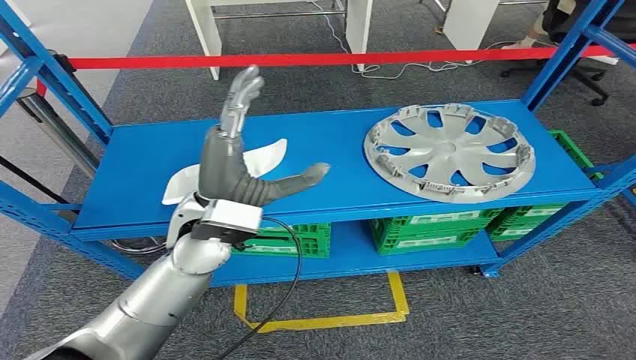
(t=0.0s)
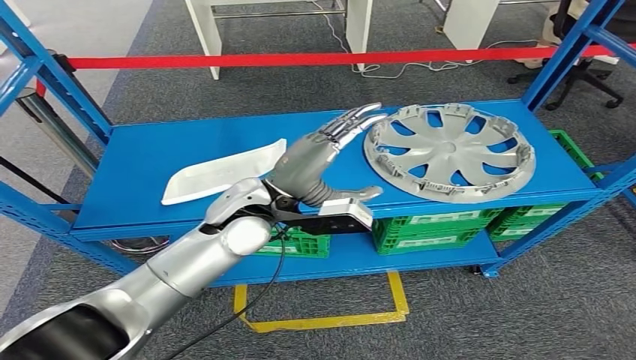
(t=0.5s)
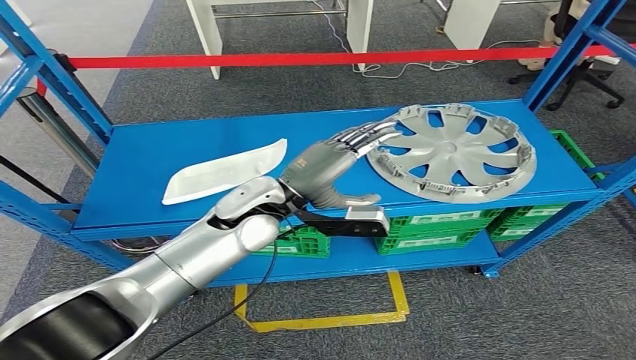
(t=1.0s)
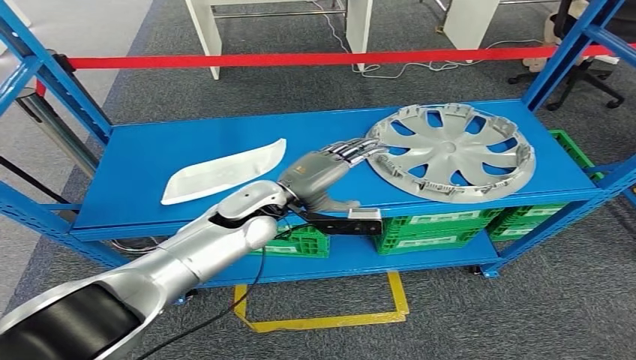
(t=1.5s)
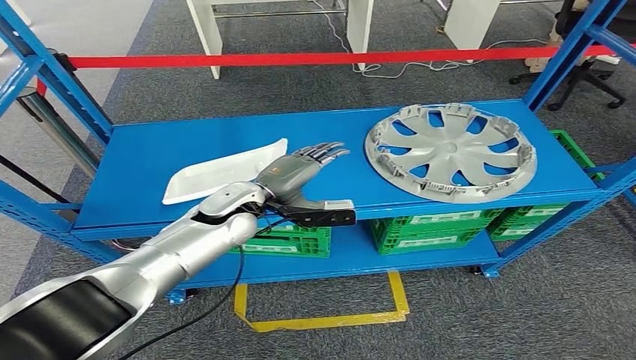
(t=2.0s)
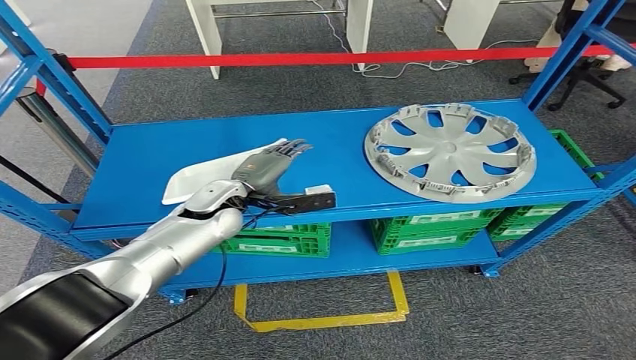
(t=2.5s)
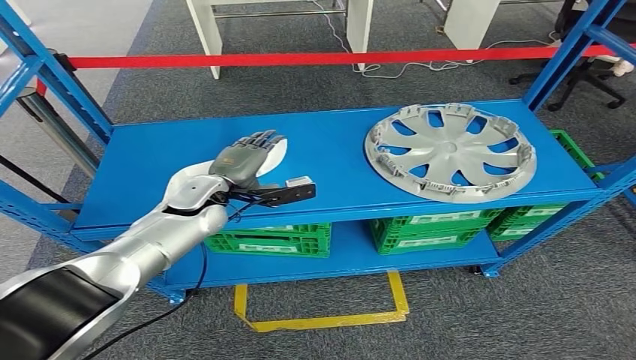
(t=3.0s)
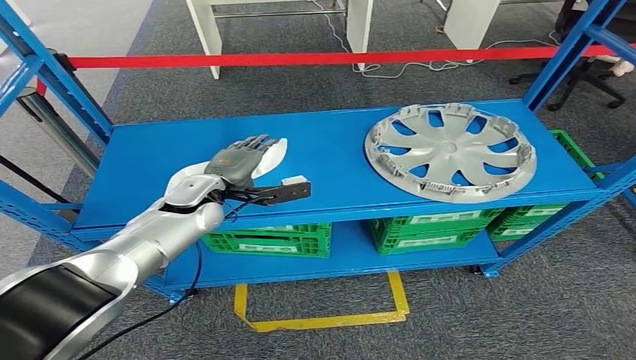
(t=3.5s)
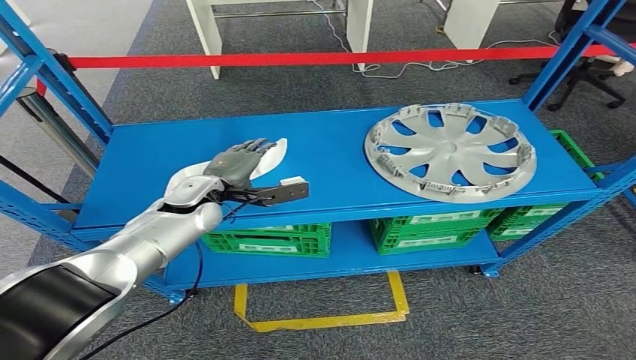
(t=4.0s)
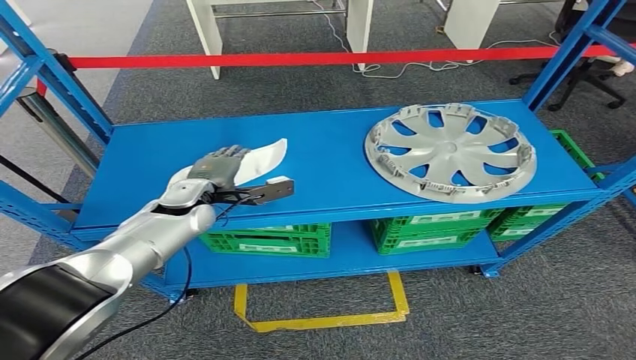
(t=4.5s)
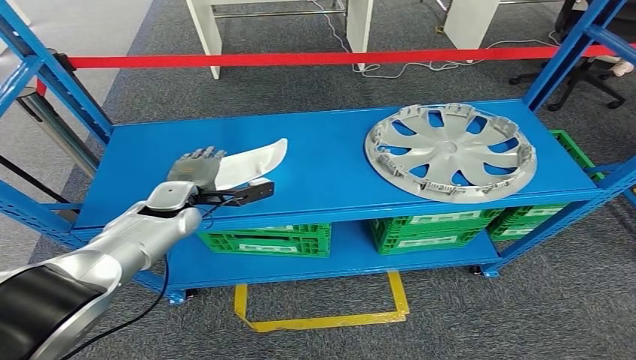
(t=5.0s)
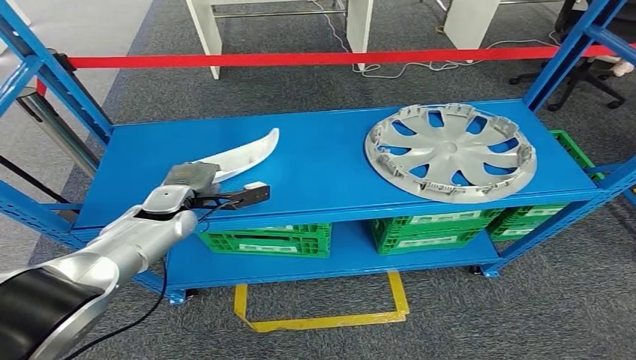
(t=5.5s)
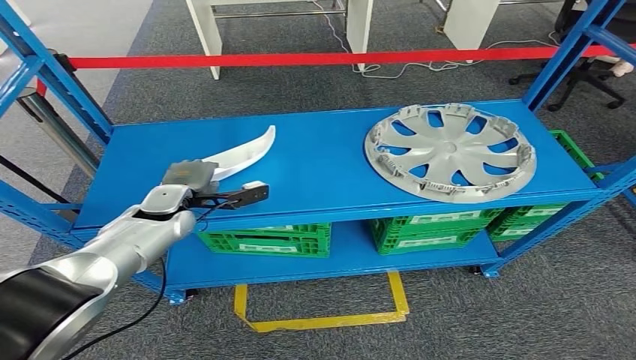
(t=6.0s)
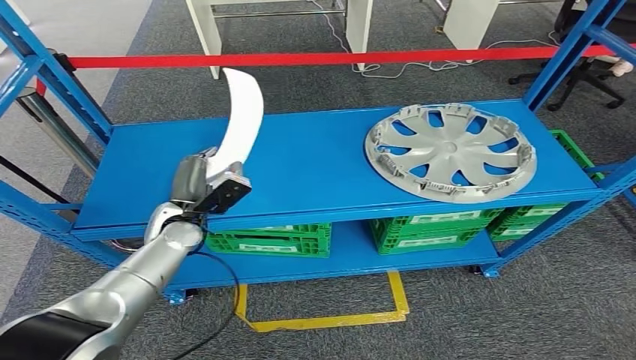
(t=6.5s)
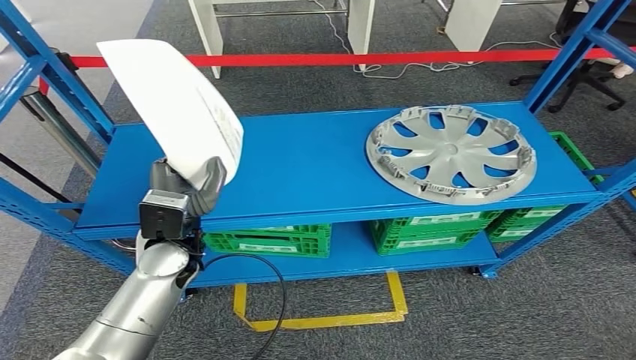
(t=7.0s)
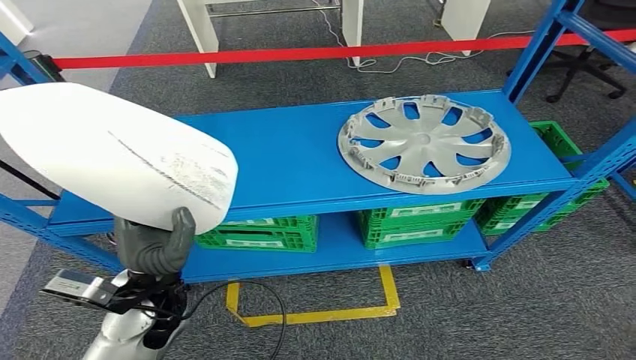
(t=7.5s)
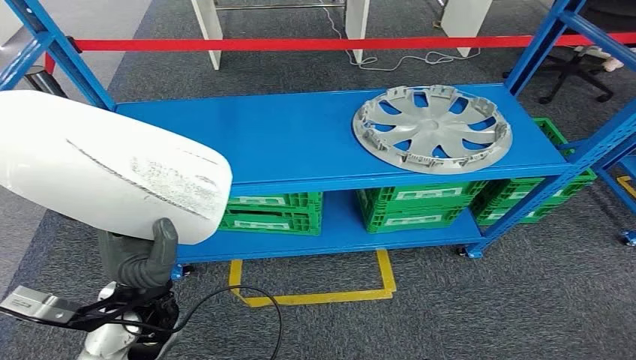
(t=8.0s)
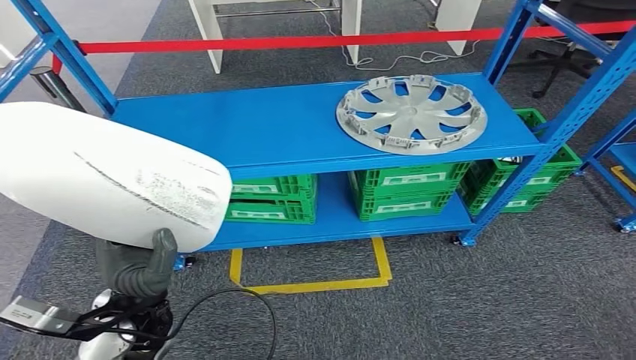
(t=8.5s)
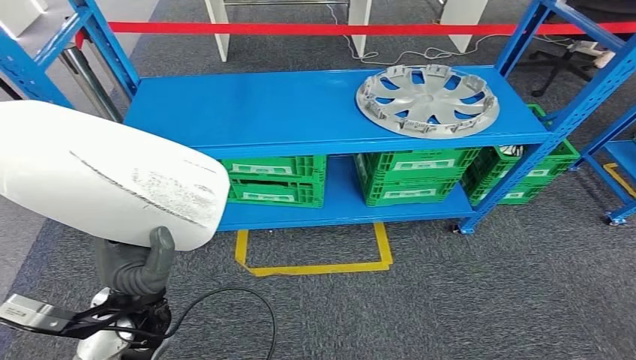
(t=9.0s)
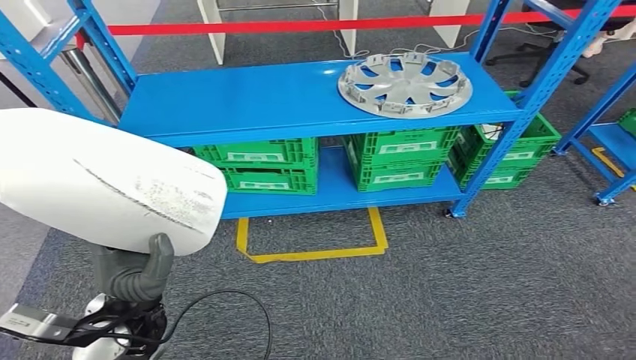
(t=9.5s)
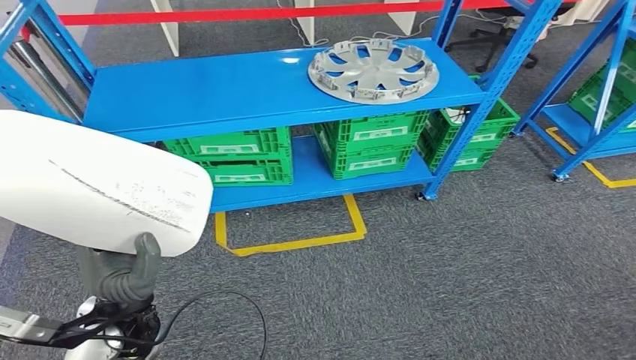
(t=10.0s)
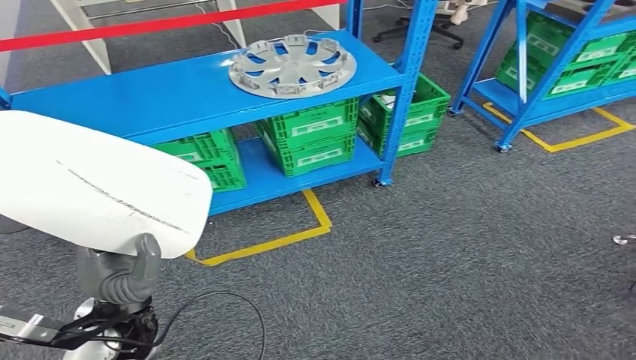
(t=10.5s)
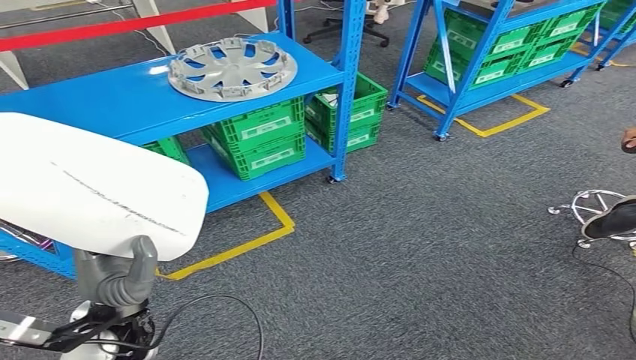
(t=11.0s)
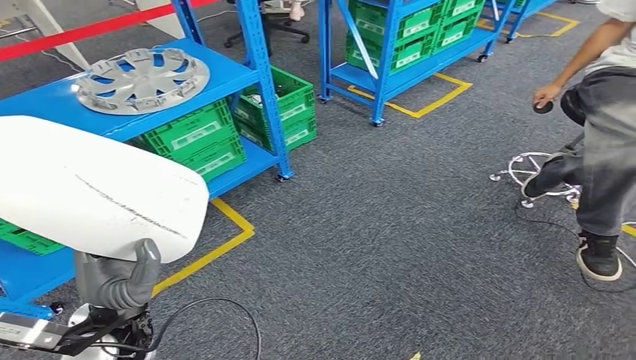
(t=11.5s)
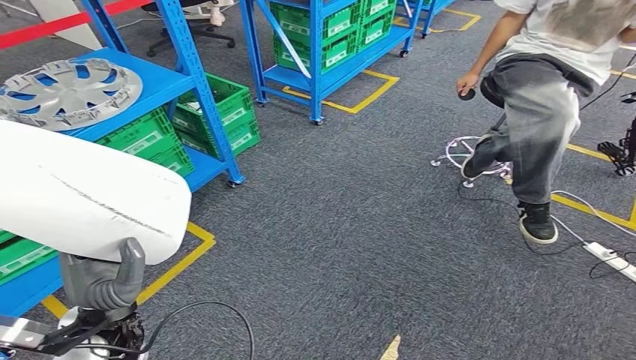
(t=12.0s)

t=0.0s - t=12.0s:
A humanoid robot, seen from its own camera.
Step, t=0.0s - t=7.5s: Pick up the small parts from the shelf.
t=2.0s - t=4.0s: The left hand travels to the left by approximately 5 cm.
t=4.0s - t=6.0s: The left hand shifts roughly 5 cm to the left.

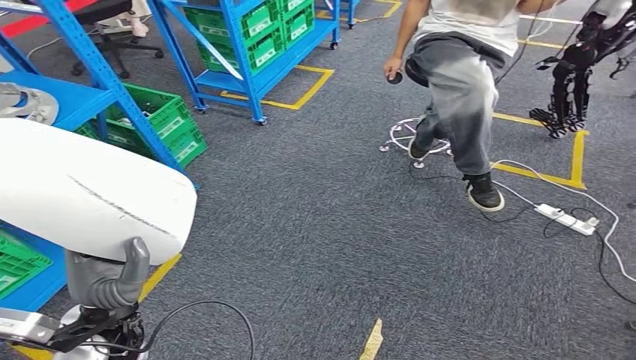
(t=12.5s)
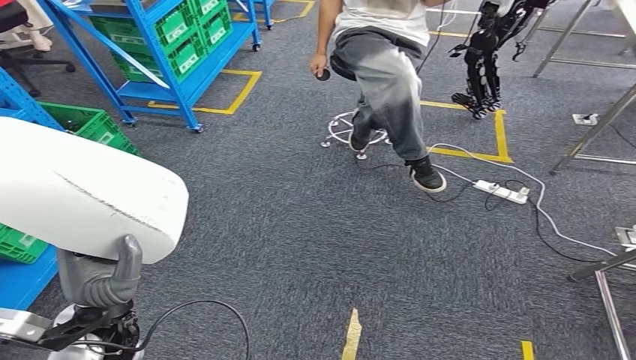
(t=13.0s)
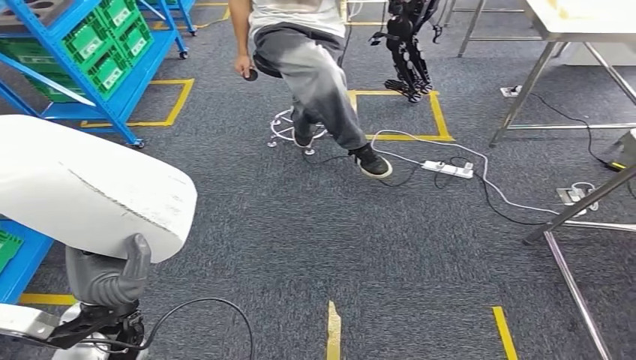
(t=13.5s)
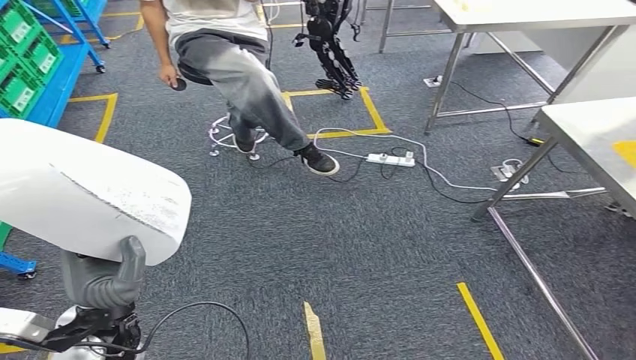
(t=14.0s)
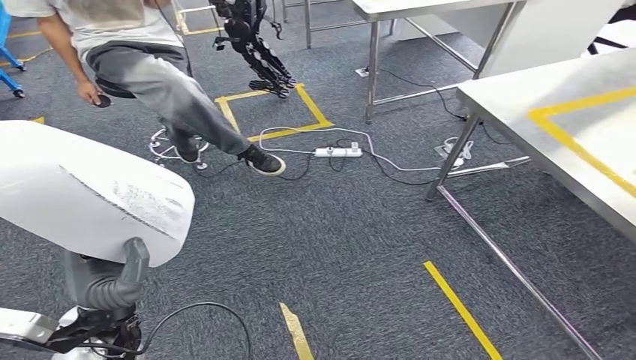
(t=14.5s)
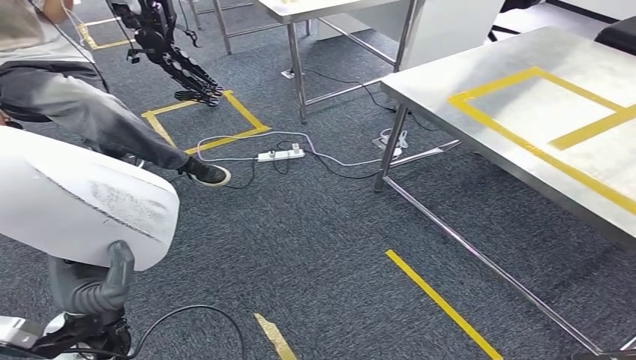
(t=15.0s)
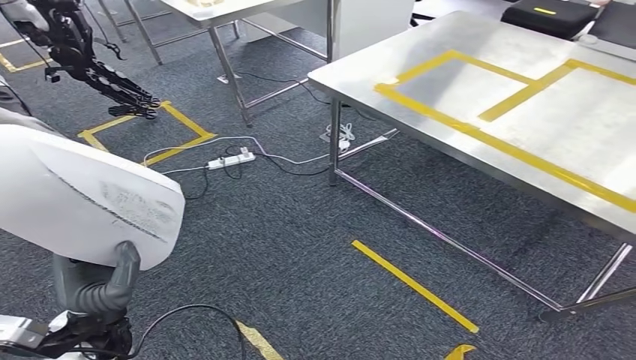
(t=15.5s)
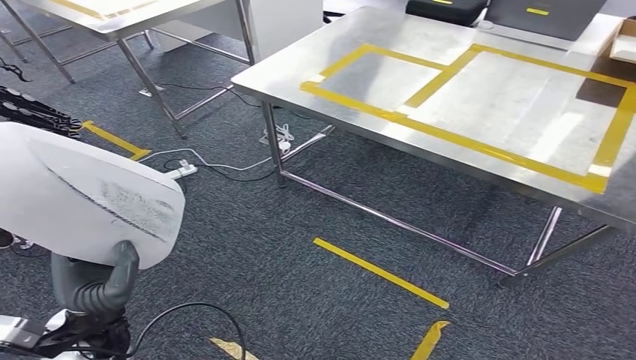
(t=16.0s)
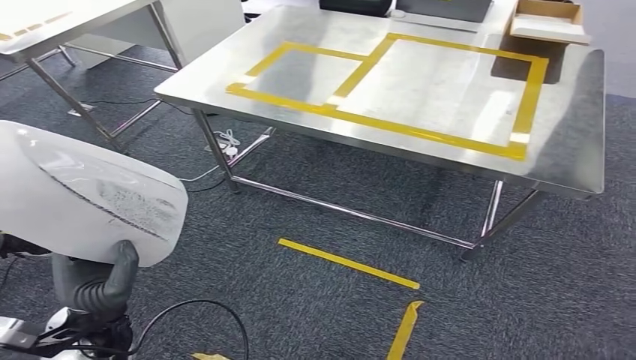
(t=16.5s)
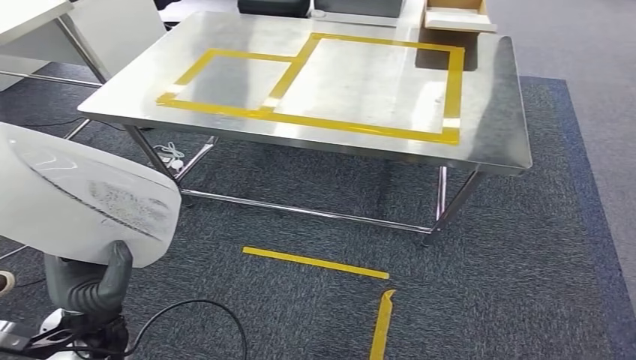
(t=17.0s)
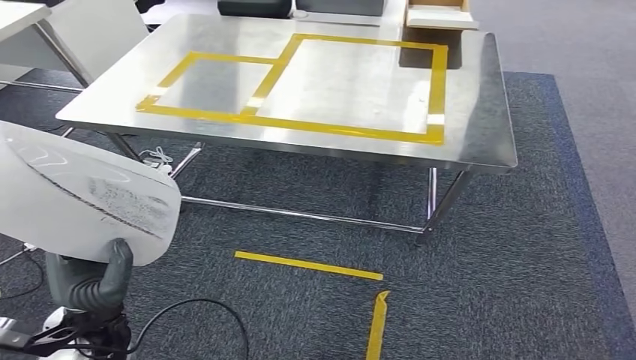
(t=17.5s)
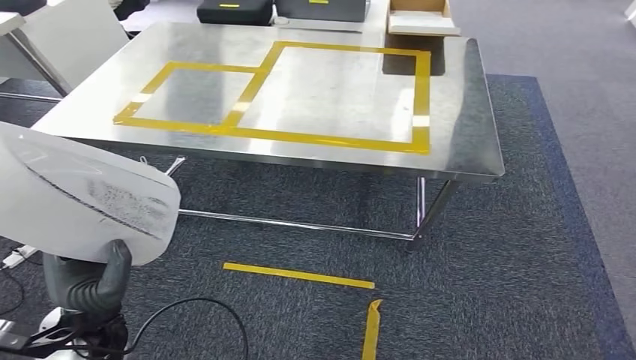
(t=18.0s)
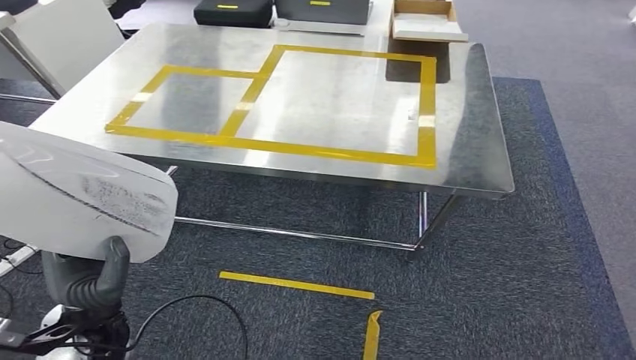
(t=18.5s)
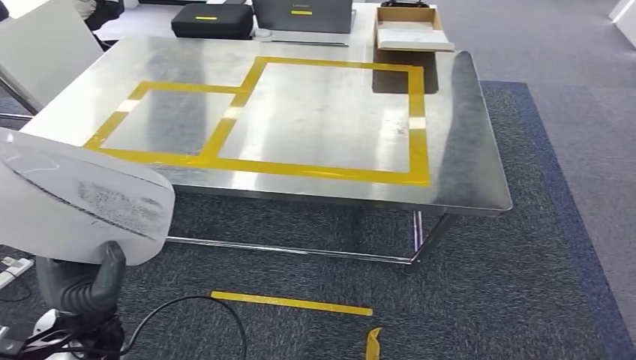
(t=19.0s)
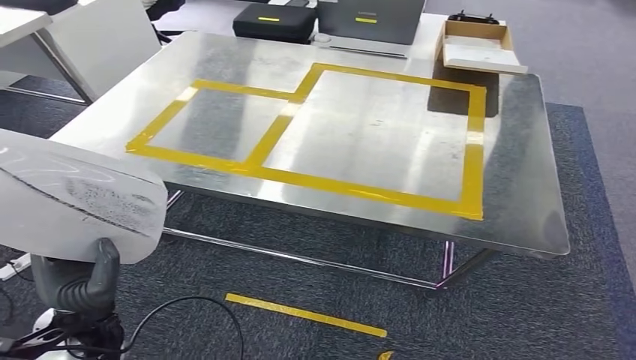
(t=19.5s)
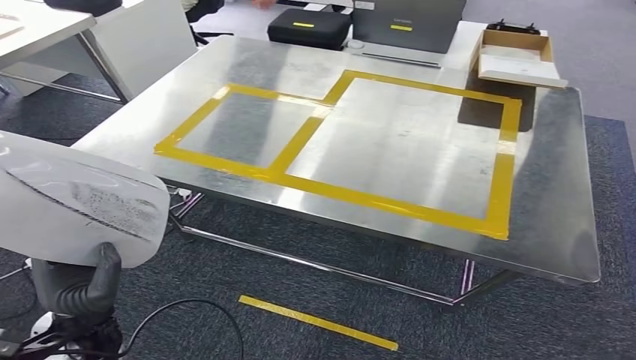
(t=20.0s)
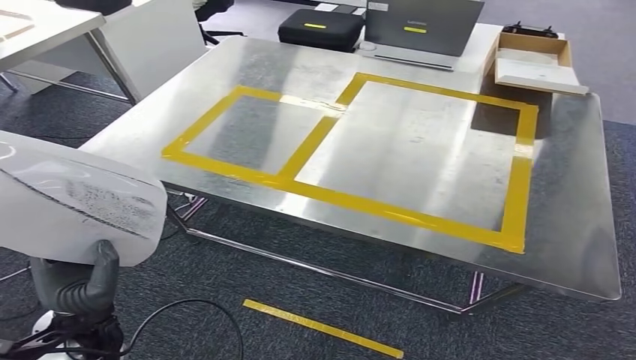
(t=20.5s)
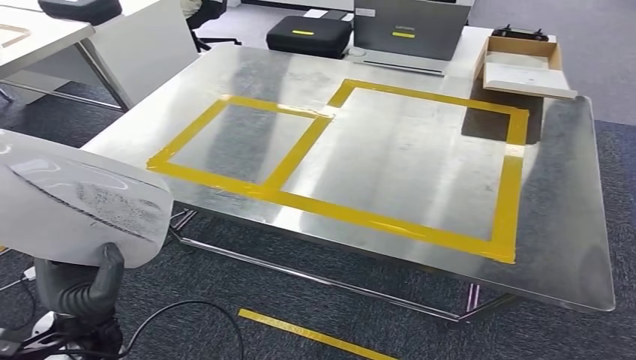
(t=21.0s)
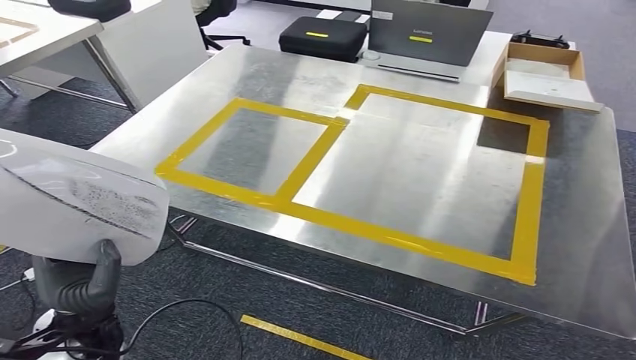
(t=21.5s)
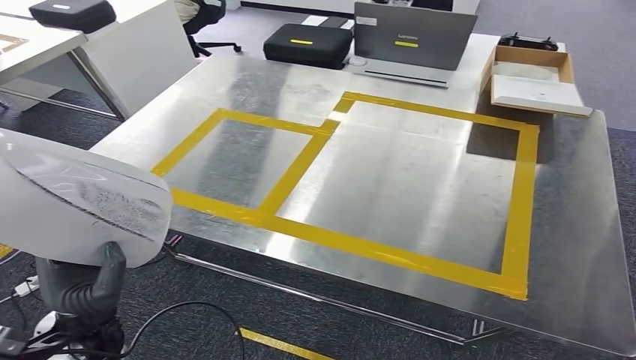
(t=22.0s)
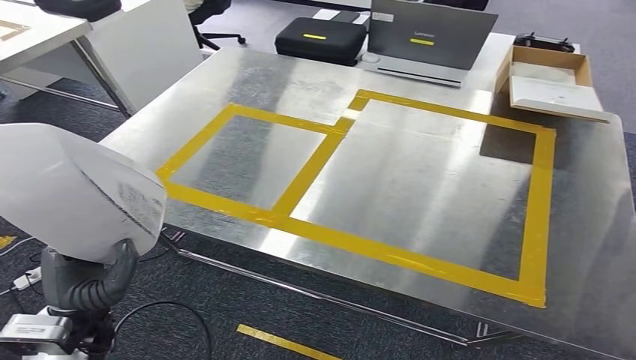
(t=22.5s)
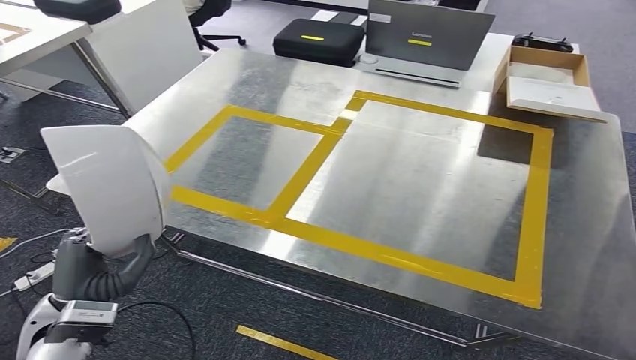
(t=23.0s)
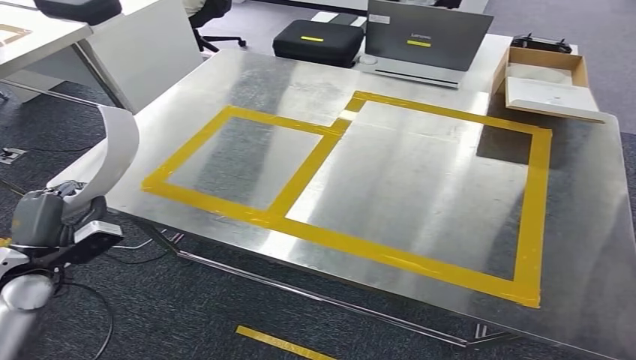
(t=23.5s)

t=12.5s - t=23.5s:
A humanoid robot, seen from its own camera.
Step, t=12.5s - t=22.0s: Move the small parts to the workbench.
